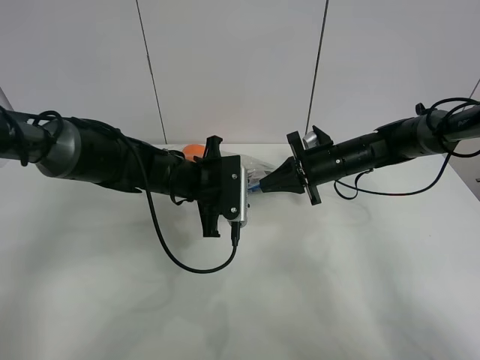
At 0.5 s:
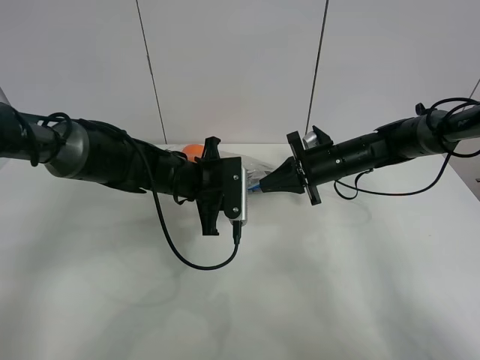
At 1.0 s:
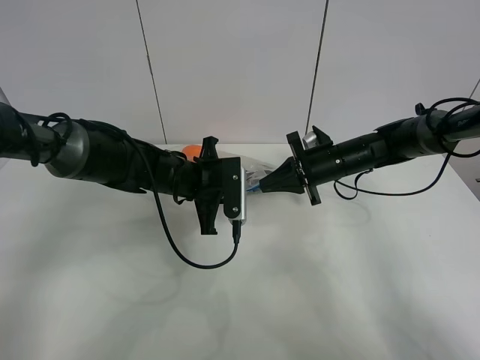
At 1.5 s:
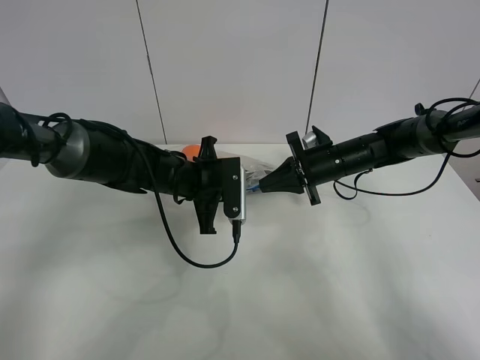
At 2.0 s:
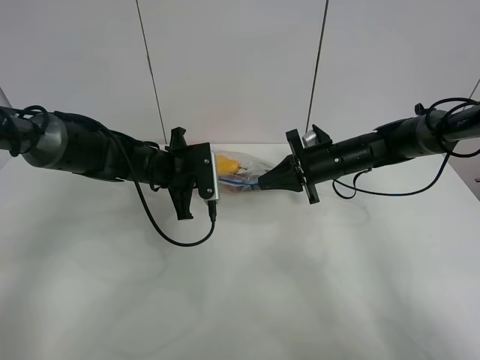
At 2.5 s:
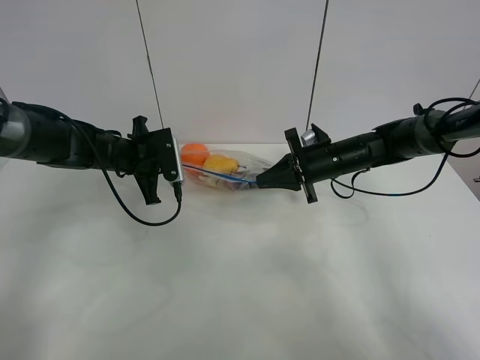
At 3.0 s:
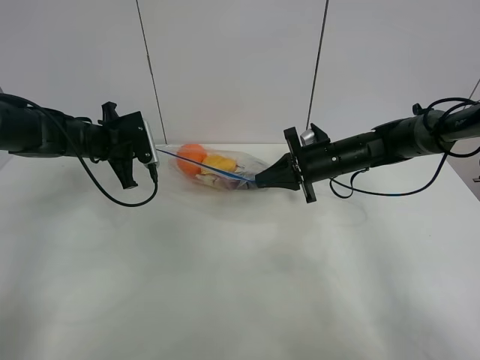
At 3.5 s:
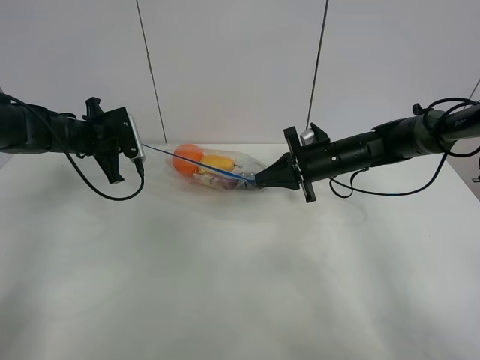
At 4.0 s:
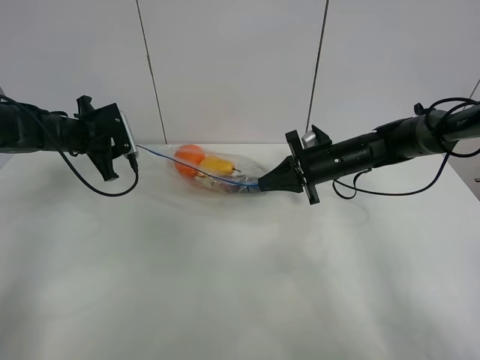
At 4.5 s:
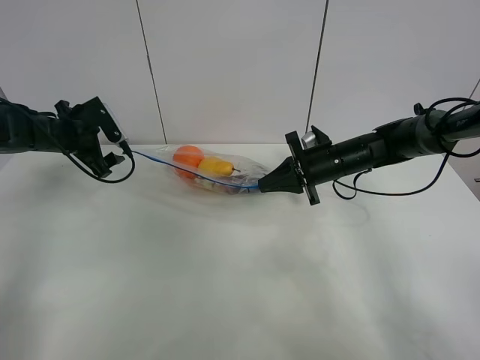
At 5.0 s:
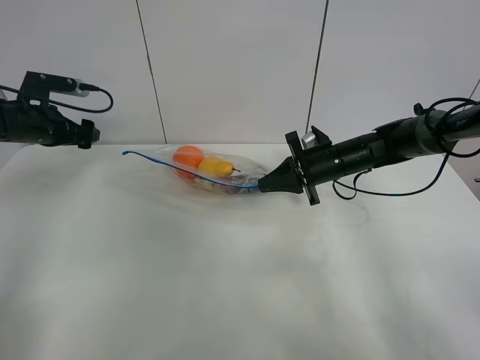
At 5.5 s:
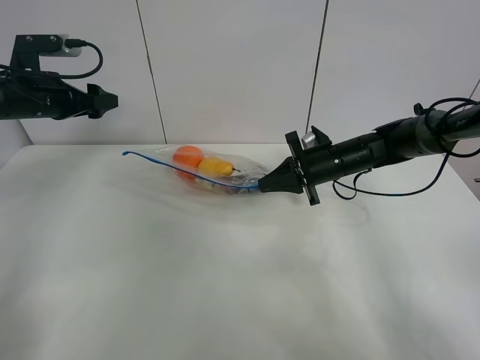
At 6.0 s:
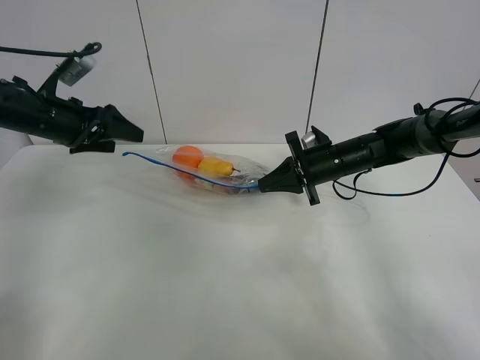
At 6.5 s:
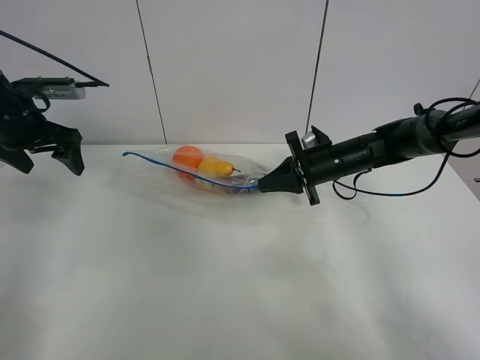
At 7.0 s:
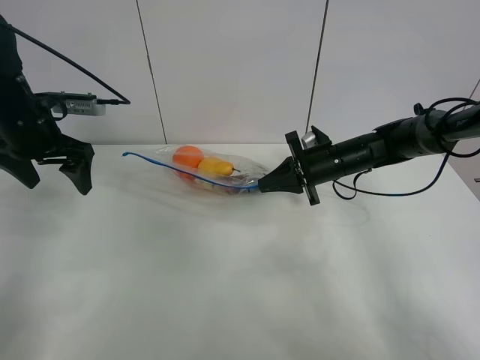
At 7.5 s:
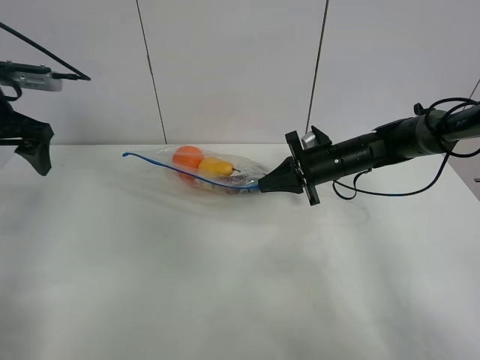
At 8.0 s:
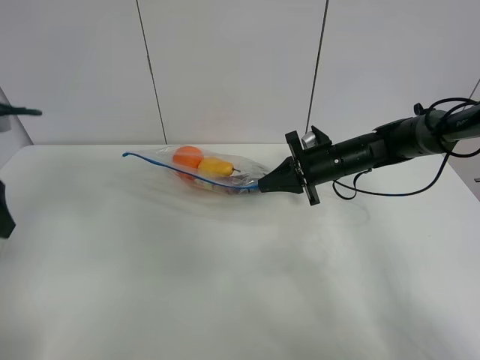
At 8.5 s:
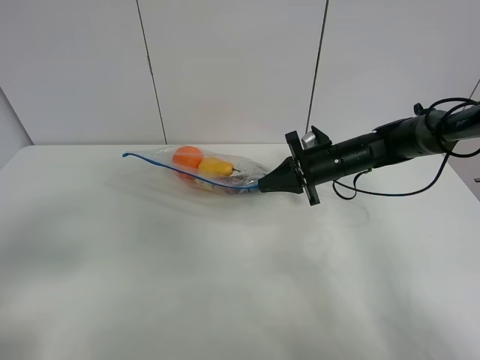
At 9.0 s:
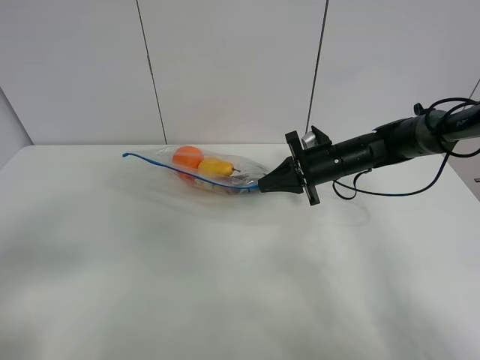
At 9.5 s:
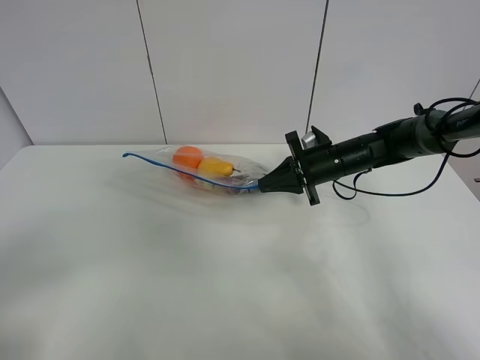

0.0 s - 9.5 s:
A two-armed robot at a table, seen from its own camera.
Step, 0.0 s - 4.5 s: Pull the fruit bag with left gripper.
0.0 s - 2.0 s: The left gripper moves to the left, some 5 cm, and closes.
2.0 s - 4.0 s: The left gripper is displaced to the left by approximately 15 cm, and opens.
4.0 s - 5.5 s: The left gripper travels upward by some 10 cm.
5.5 s - 7.5 s: The left gripper travels backward and upward by some 10 cm.
7.5 s - 9.5 s: The left gripper moves backward, some 35 cm.

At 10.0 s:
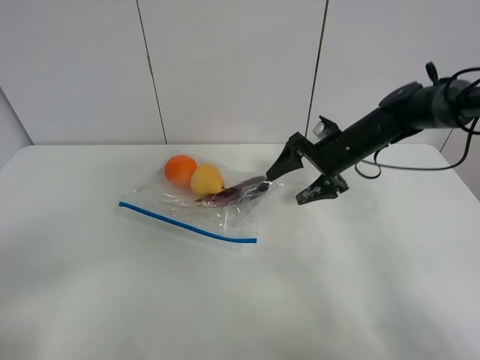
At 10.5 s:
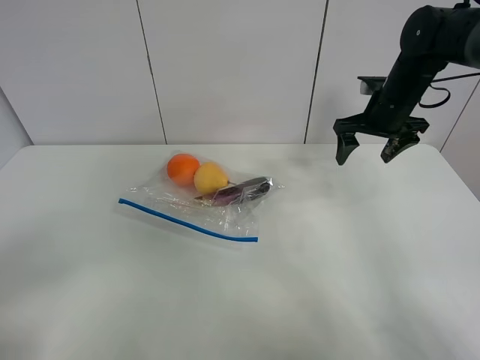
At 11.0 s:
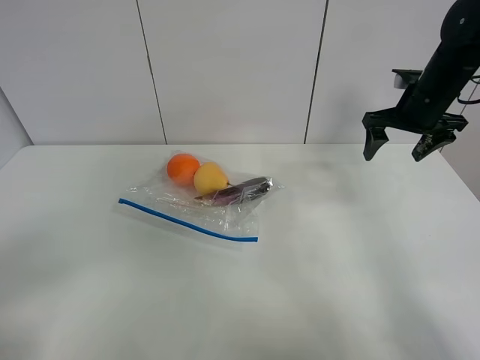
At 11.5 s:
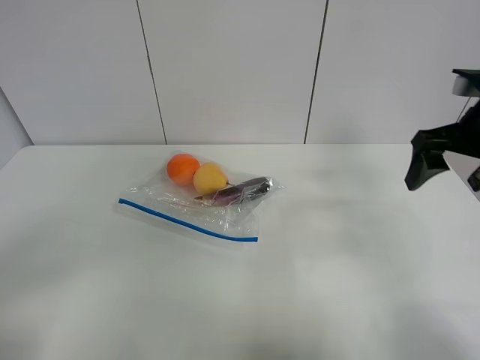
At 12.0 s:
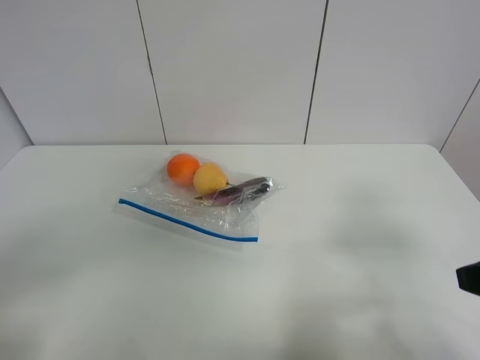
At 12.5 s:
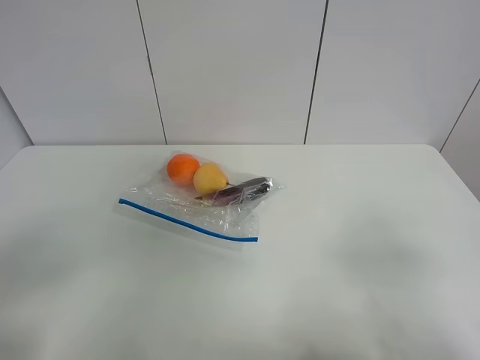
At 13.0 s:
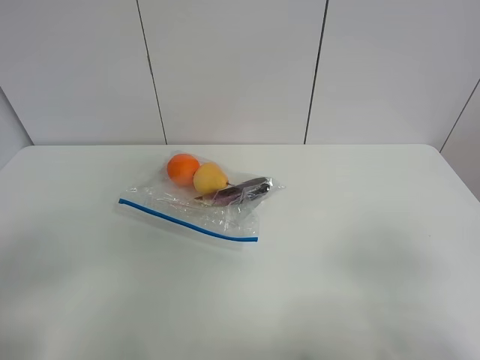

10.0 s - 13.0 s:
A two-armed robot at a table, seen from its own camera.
10.0 s - 11.5 s: The right gripper is displaced backward, upward and to the right by about 20 cm.
11.5 s - 13.0 s: The right gripper heads backward, covering roughly 25 cm.

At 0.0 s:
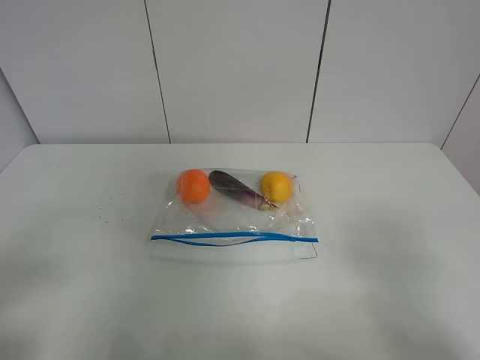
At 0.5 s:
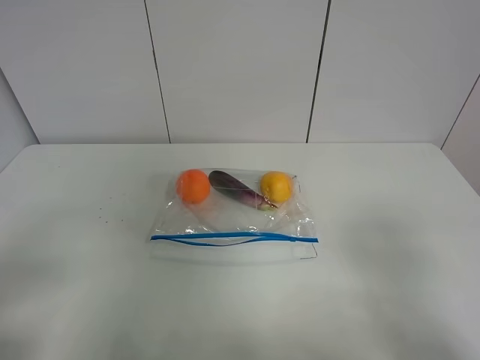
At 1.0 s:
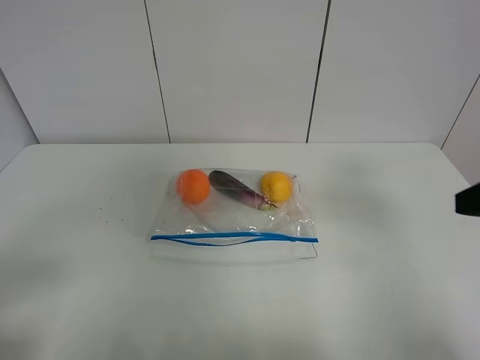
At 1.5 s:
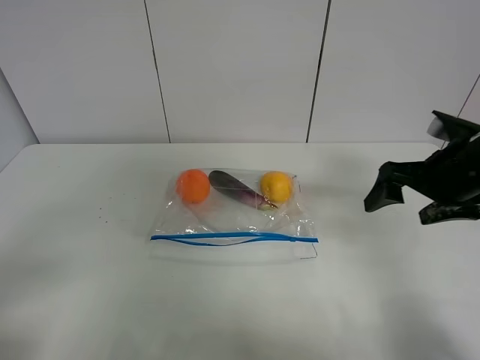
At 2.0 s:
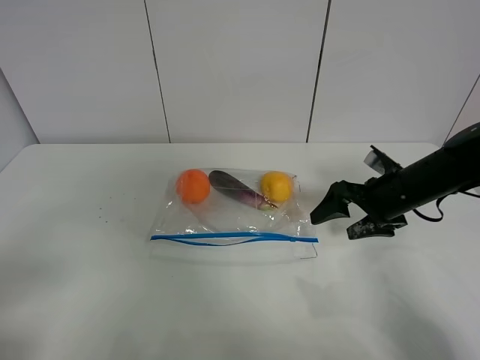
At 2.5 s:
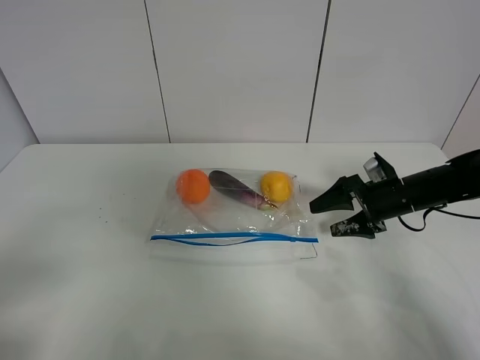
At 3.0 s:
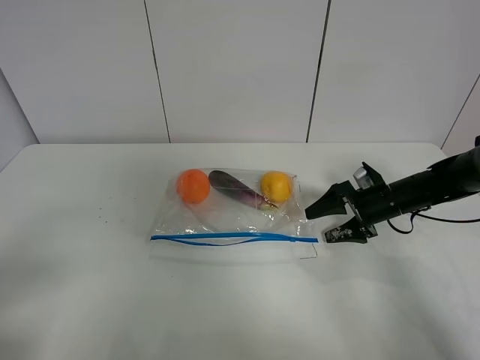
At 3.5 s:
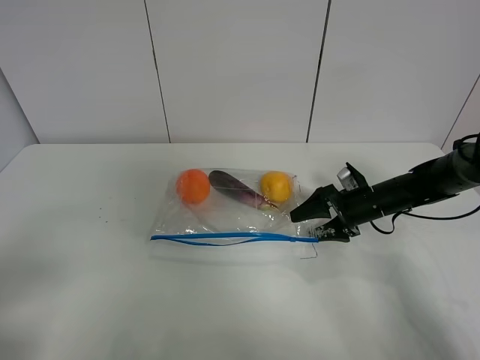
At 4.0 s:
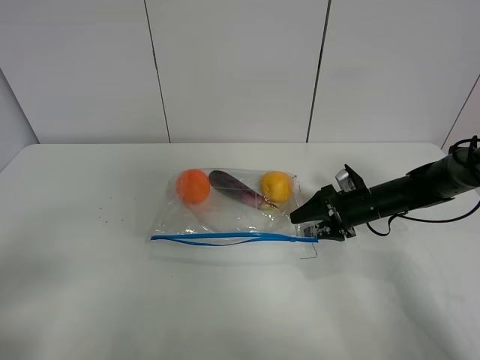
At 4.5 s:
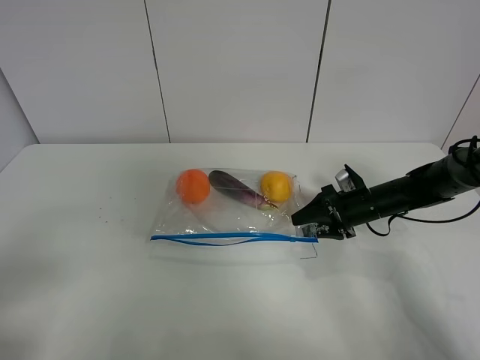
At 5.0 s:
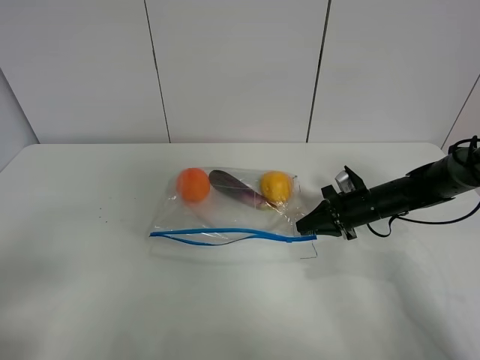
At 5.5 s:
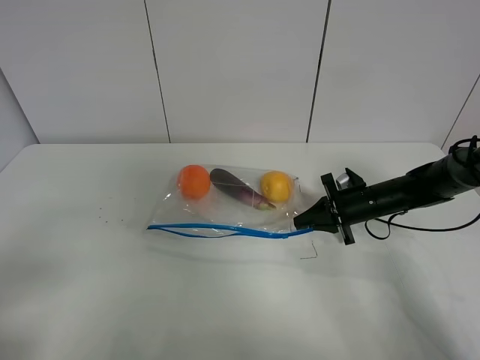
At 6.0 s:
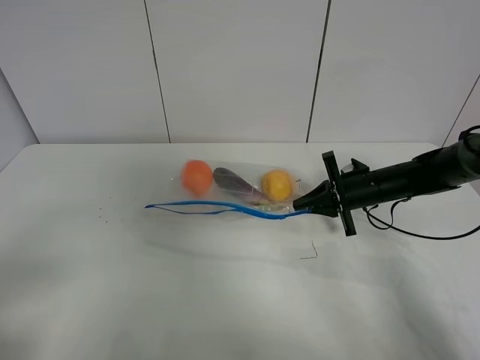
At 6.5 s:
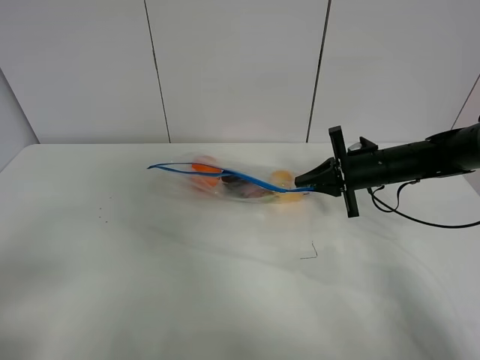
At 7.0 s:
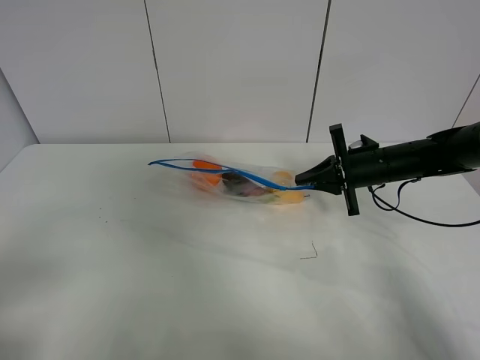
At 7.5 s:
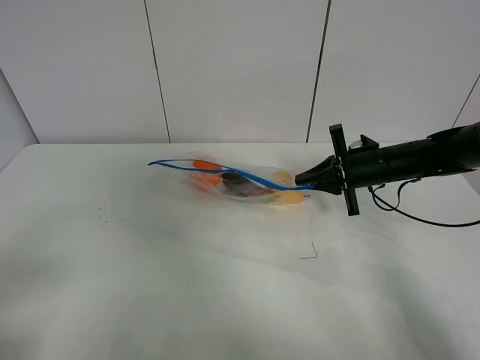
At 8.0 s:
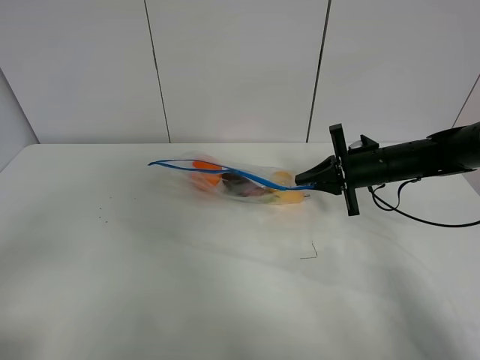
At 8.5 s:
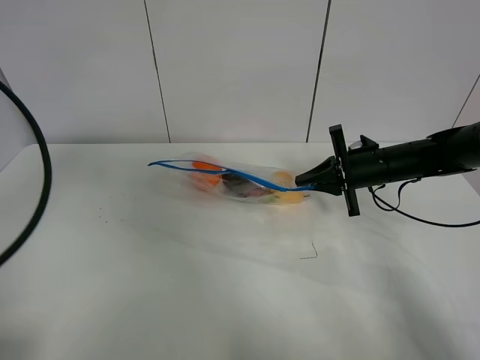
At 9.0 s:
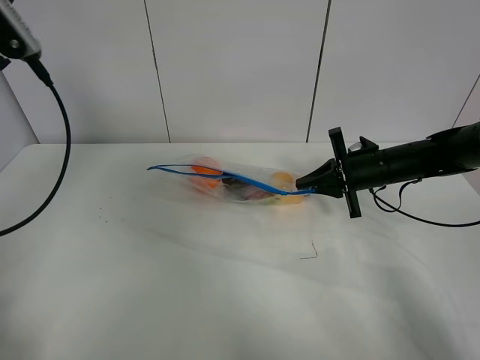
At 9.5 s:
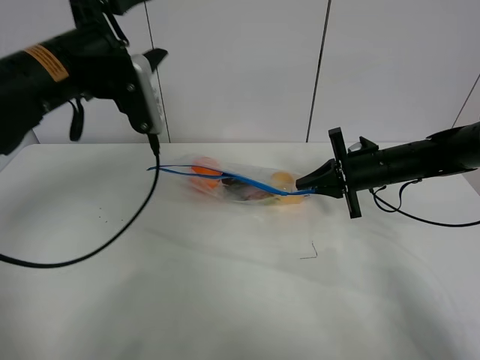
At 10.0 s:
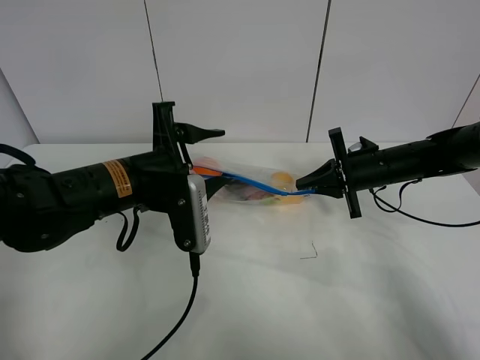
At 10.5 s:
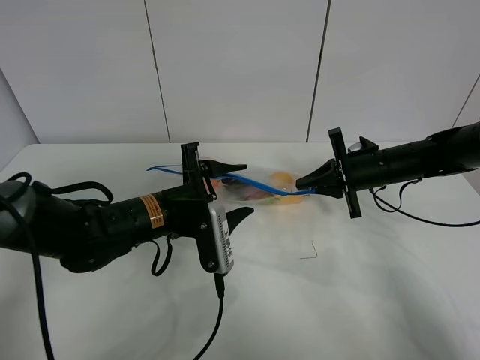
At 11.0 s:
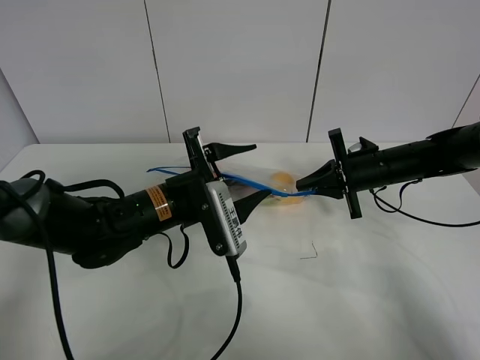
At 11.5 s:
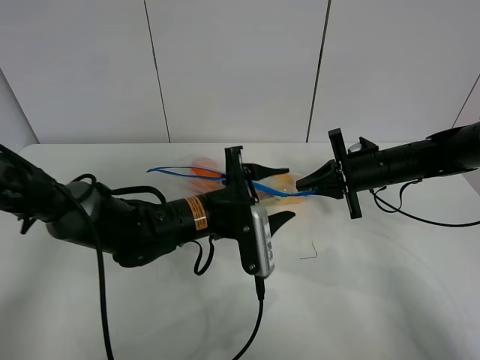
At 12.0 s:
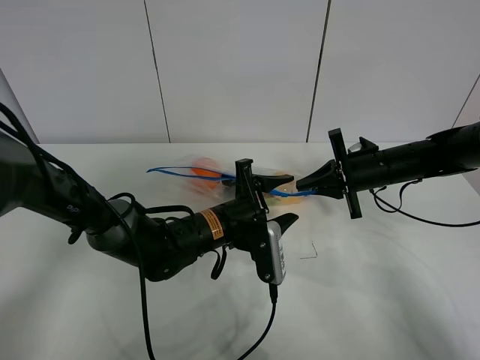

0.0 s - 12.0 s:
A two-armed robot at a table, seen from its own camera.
Step, 0.0 s - 5.0 s: Grasp the fruit bag with right gripper.
Step, 5.5 s - 6.5 s: Lift the fruit bag with your right gripper.
0.0 s - 2.0 s: The right gripper heads forward and downward, covering approximately 35 cm.
2.0 s - 4.0 s: The right gripper moves downward and forward, some 10 cm.
4.0 s - 6.0 s: The right gripper closes its fingers.
6.0 s - 8.0 s: The left gripper moves approximately 5 cm.
8.0 s - 10.0 s: The left gripper goes approximately 30 cm forward, to the right and downward.
10.0 s - 12.0 s: The left gripper shifts approximately 15 cm downward and to the right.

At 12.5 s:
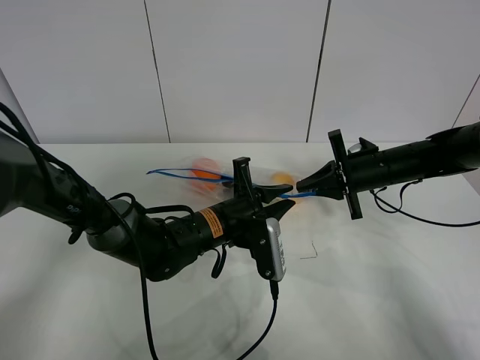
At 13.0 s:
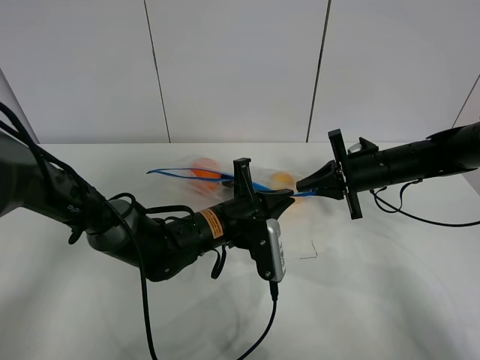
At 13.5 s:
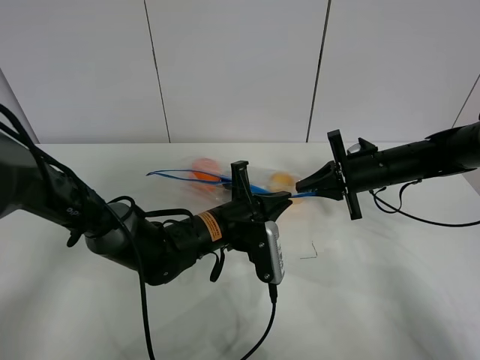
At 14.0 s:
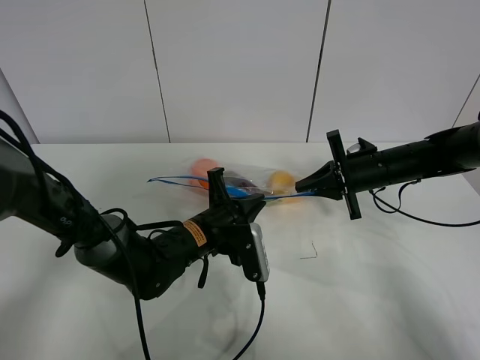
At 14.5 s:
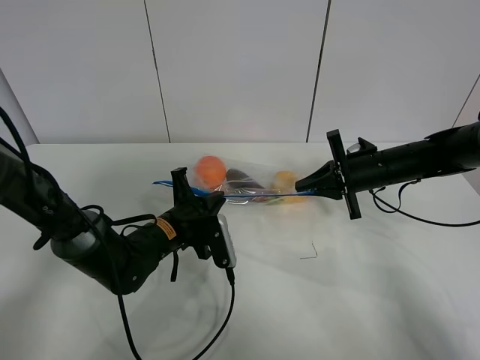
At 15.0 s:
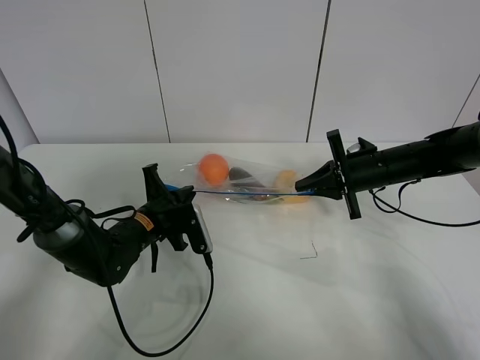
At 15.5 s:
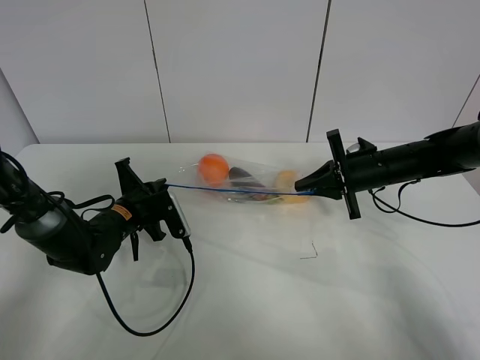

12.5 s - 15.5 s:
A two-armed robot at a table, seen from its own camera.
12.5 s - 14.0 s: There are only small adjustments of the grippers.
14.0 s - 15.5 s: The left gripper heads to the left, covering roughly 15 cm.
